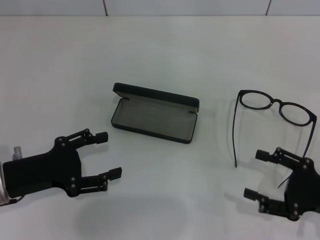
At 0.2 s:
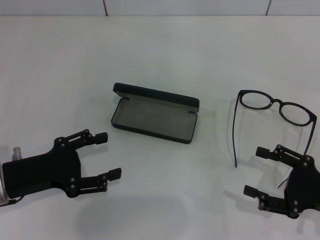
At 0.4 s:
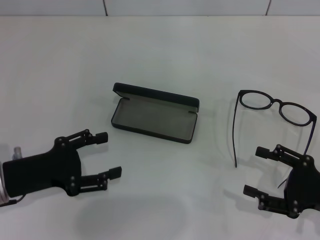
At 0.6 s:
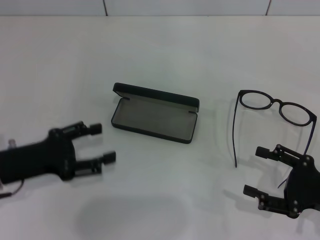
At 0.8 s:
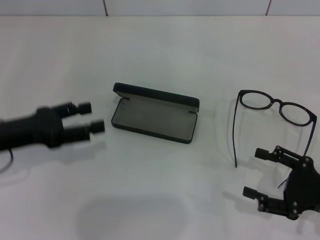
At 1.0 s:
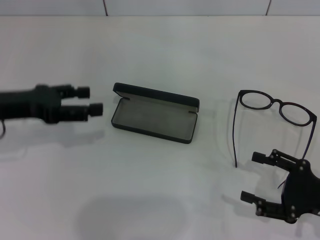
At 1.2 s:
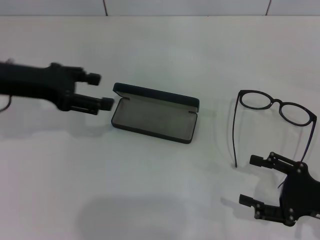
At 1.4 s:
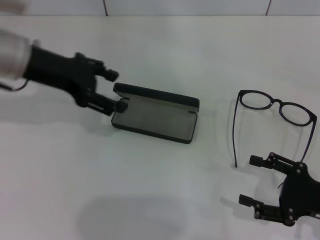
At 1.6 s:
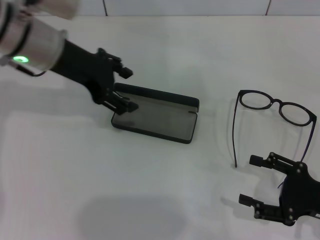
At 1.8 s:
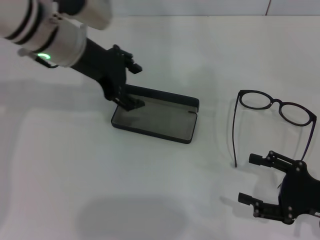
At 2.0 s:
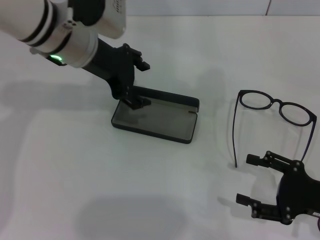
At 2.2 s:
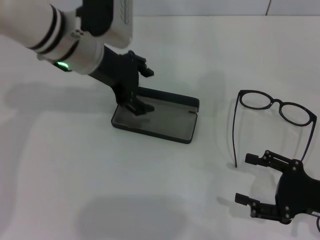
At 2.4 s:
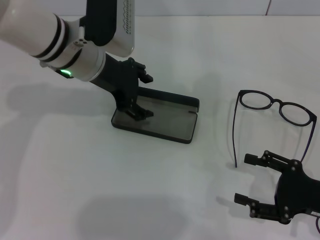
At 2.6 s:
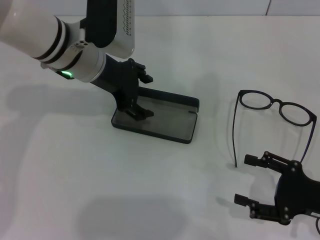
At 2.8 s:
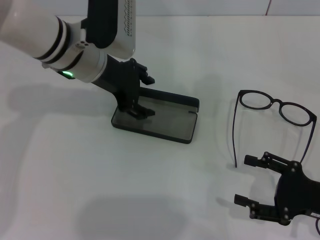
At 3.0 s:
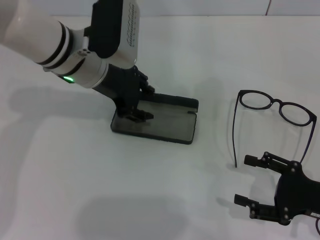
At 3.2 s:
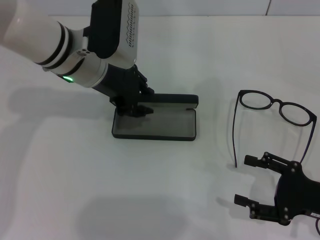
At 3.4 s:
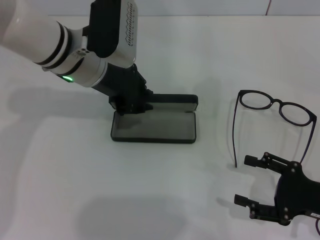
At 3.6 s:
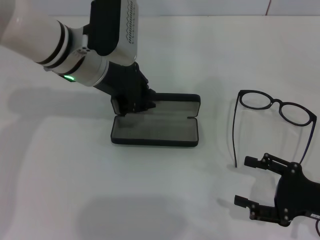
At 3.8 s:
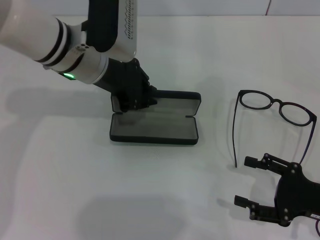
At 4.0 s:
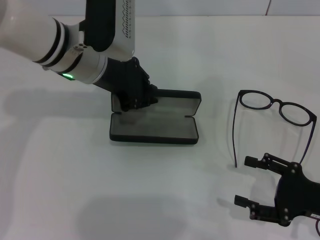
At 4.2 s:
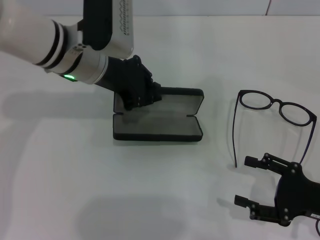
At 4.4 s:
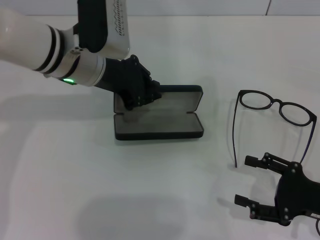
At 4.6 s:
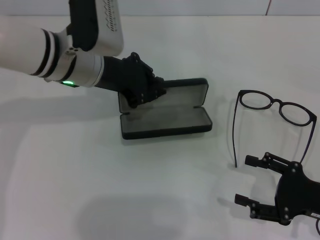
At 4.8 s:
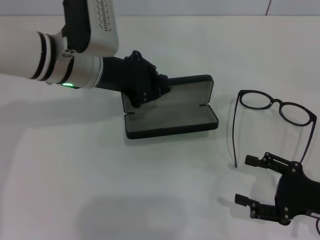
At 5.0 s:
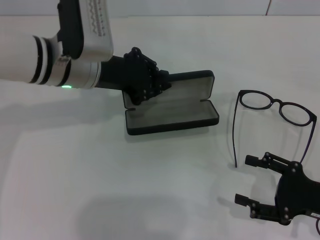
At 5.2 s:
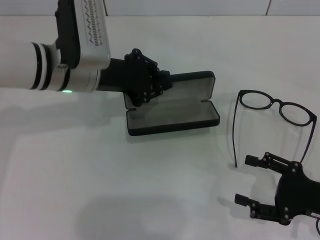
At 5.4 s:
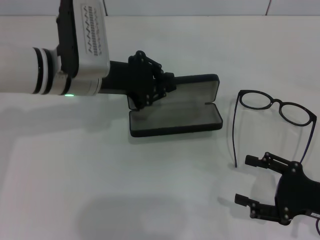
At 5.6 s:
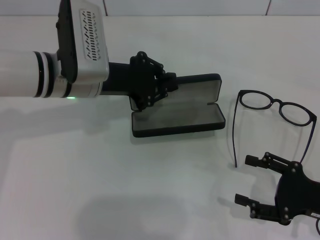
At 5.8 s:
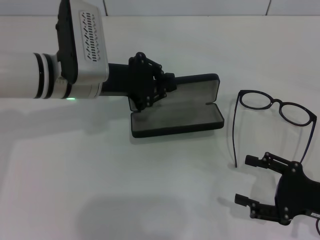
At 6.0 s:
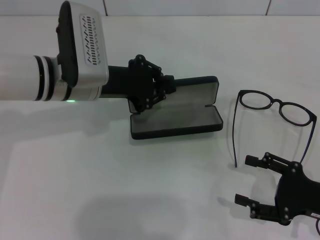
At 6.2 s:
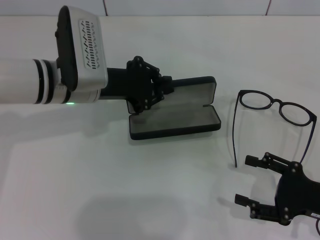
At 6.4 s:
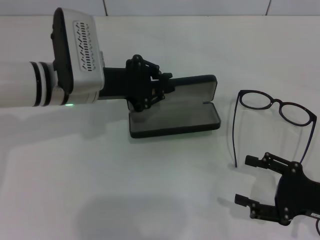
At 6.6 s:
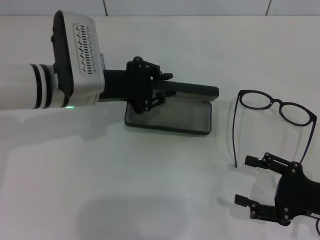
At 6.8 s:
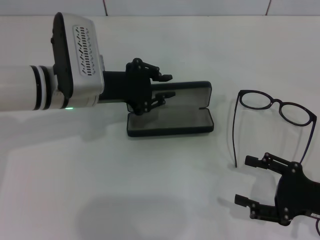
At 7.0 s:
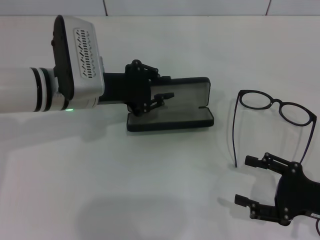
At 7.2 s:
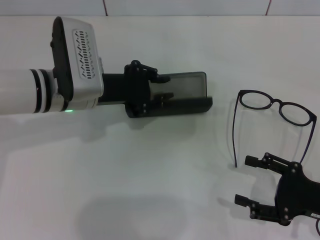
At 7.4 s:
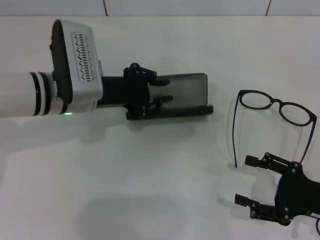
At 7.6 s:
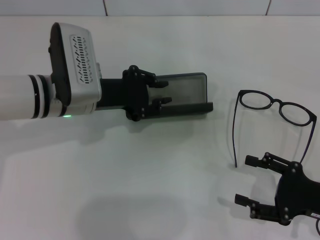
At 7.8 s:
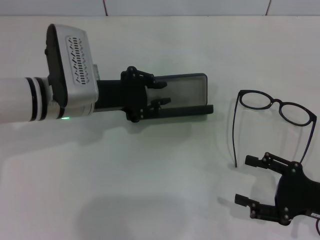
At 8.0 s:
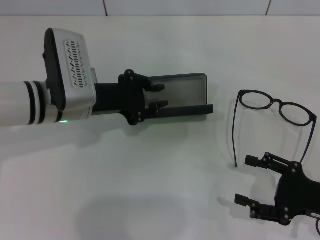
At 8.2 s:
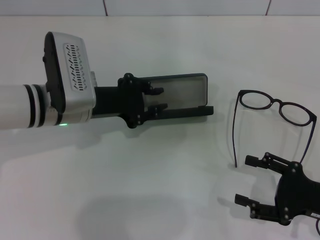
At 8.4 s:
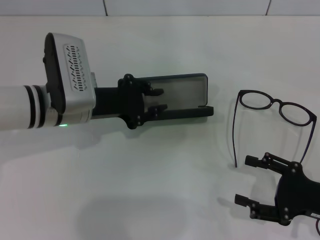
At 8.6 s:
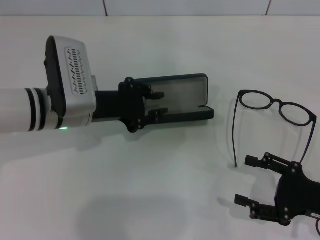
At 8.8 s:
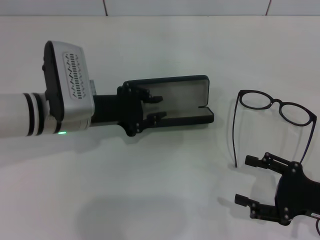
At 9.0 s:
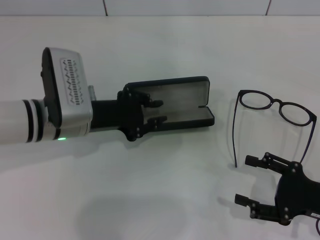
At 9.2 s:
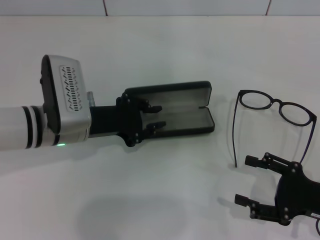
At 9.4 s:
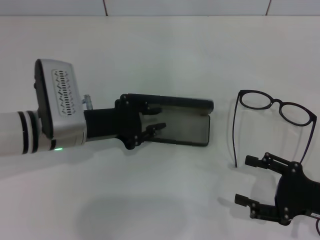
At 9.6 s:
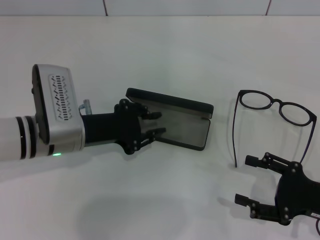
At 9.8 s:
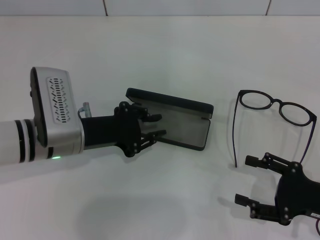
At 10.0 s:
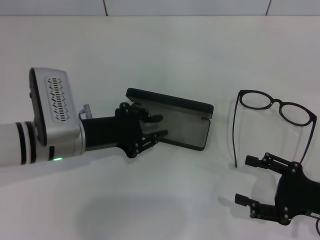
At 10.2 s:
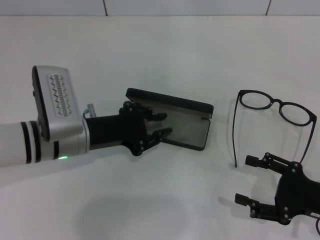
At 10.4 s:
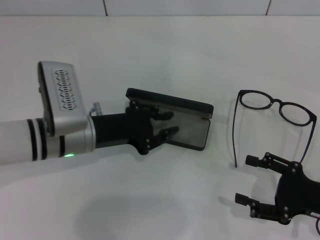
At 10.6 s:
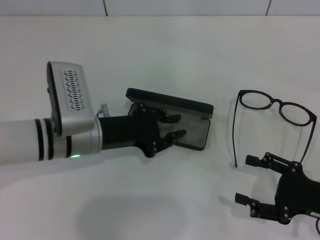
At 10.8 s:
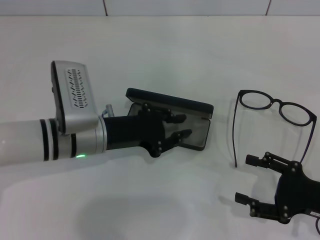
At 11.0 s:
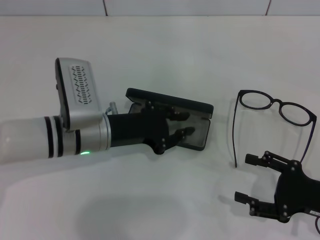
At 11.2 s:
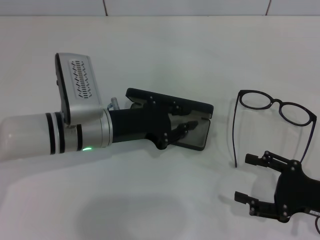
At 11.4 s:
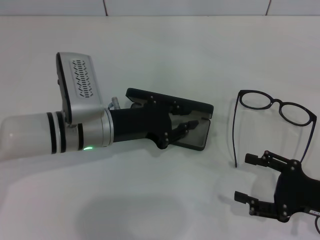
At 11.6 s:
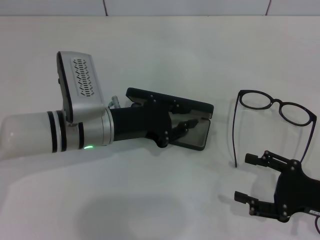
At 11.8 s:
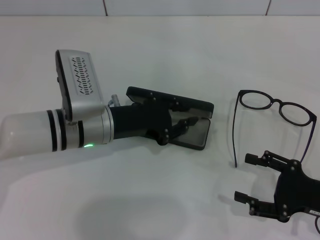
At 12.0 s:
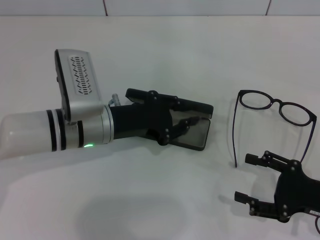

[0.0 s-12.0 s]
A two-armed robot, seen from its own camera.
Step, 0.0 to 3.6 s: Grab the glasses case with your left hand.
Step, 3.8 to 10.4 s: Place the glasses case in the center of the table with your left hand.
0.0 to 1.6 s: The left gripper moves forward, upward and to the right, about 25 cm.
1.6 to 3.0 s: The left gripper changes place by some 5 cm.
3.0 to 4.4 s: The left gripper closes up.
4.4 to 6.0 s: The grippers make only small movements.
6.0 to 9.0 s: The grippers move only a little.
9.0 to 12.0 s: The grippers stay close to where they were, moving slightly.

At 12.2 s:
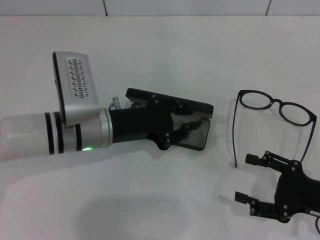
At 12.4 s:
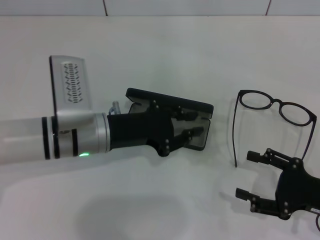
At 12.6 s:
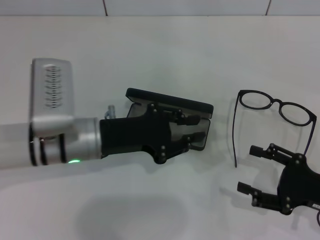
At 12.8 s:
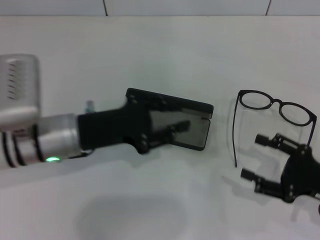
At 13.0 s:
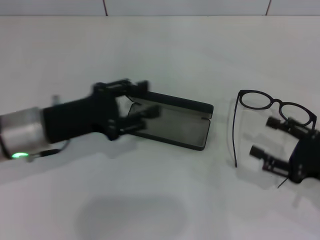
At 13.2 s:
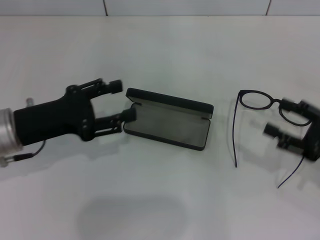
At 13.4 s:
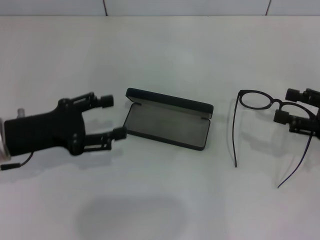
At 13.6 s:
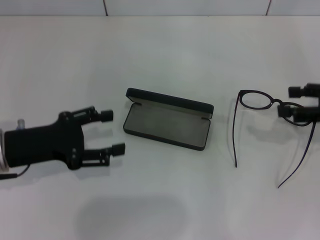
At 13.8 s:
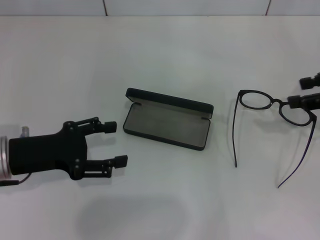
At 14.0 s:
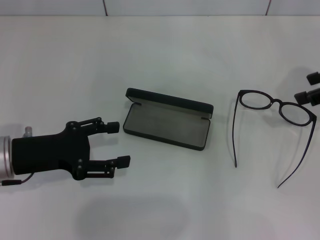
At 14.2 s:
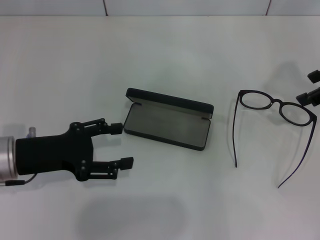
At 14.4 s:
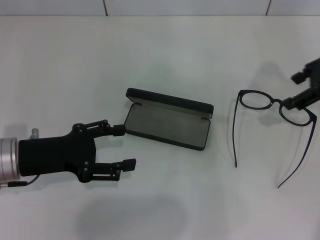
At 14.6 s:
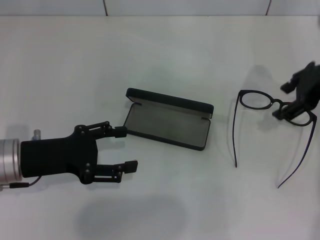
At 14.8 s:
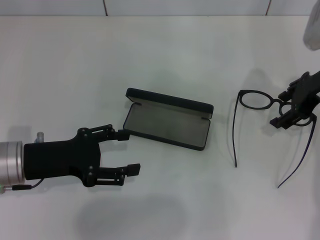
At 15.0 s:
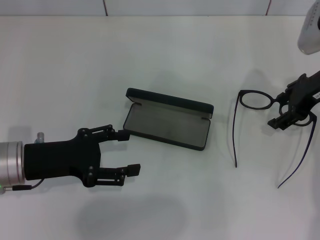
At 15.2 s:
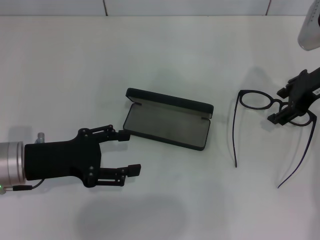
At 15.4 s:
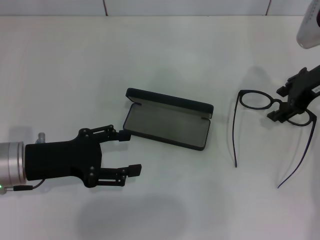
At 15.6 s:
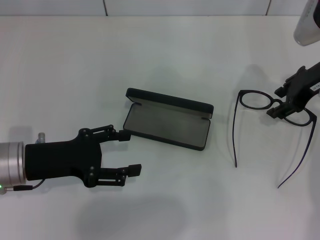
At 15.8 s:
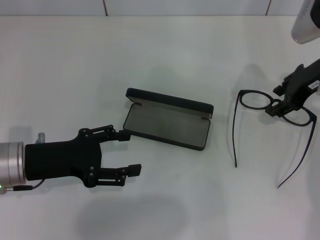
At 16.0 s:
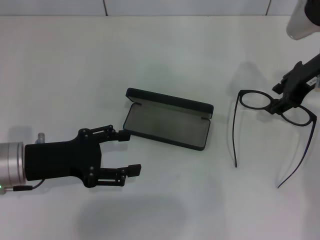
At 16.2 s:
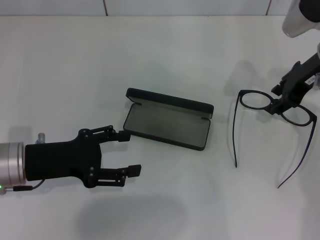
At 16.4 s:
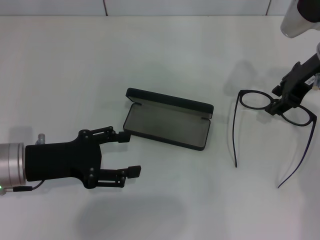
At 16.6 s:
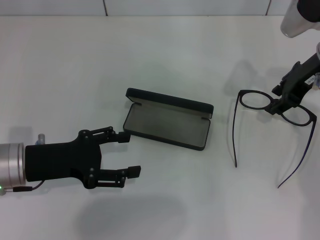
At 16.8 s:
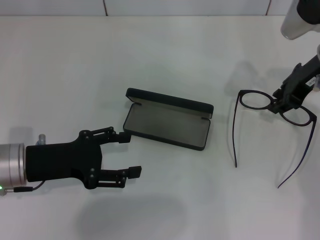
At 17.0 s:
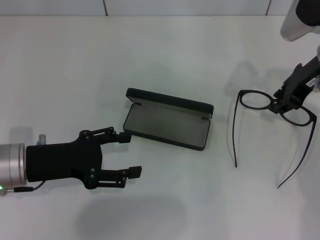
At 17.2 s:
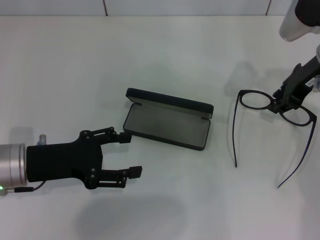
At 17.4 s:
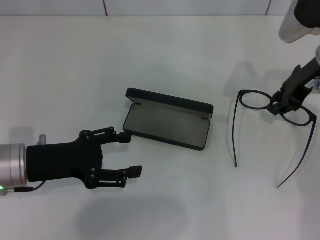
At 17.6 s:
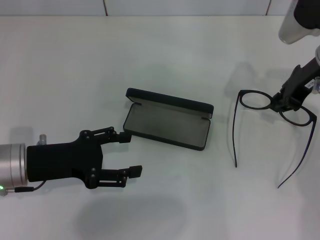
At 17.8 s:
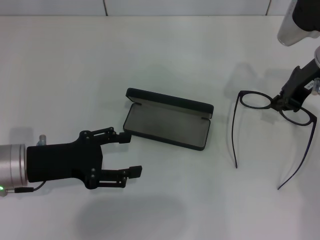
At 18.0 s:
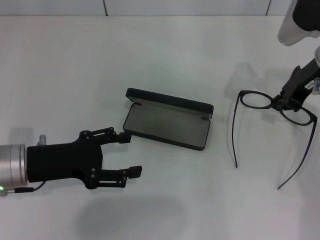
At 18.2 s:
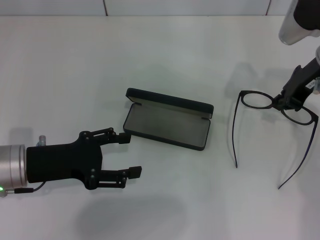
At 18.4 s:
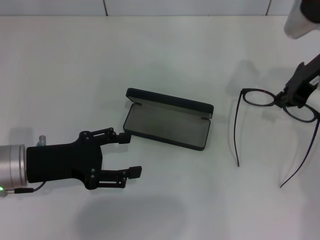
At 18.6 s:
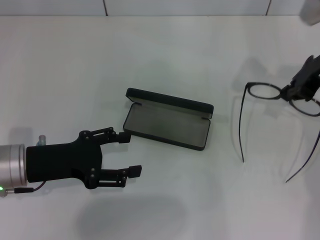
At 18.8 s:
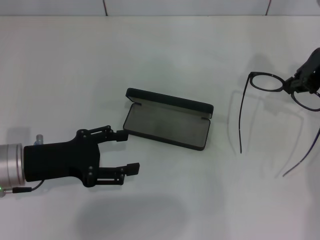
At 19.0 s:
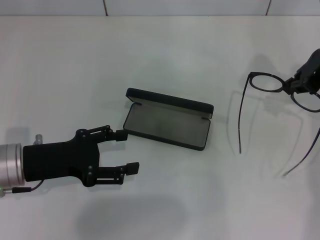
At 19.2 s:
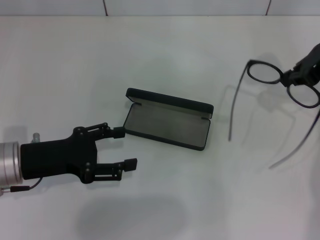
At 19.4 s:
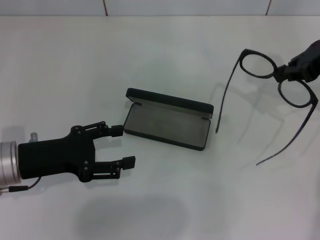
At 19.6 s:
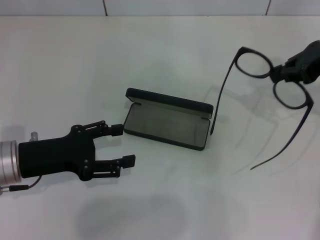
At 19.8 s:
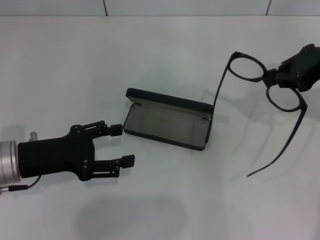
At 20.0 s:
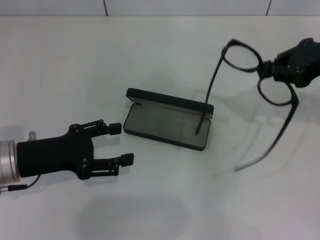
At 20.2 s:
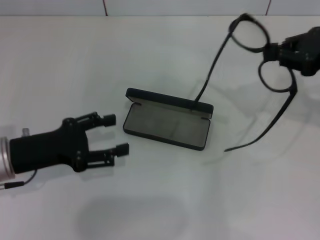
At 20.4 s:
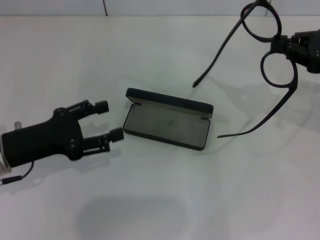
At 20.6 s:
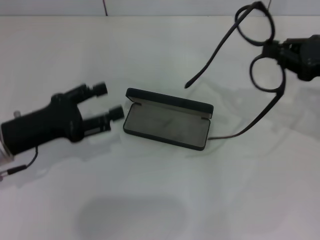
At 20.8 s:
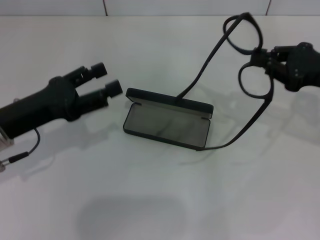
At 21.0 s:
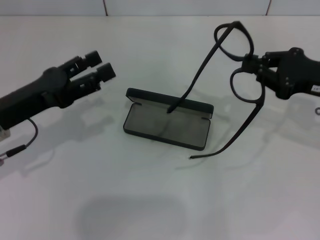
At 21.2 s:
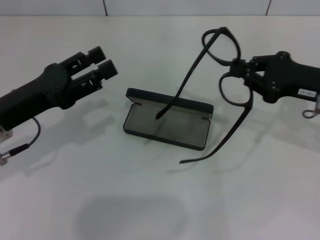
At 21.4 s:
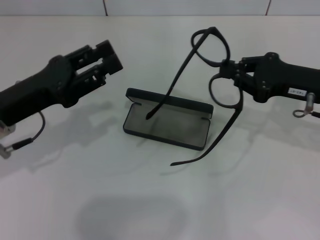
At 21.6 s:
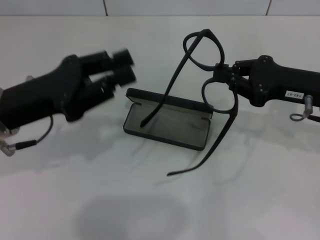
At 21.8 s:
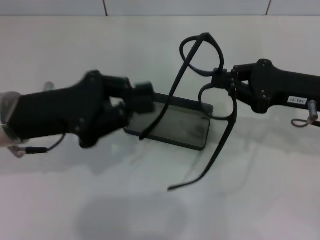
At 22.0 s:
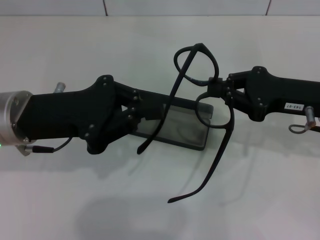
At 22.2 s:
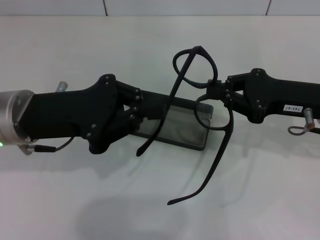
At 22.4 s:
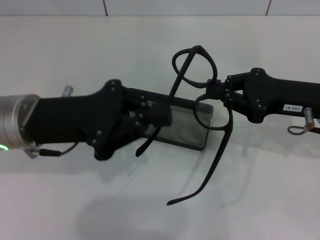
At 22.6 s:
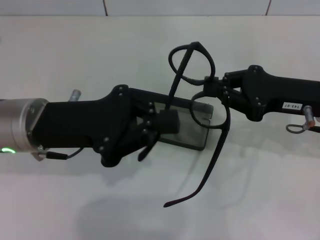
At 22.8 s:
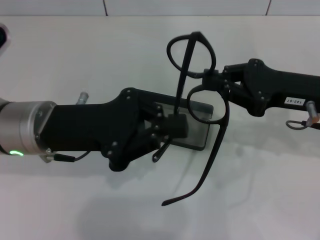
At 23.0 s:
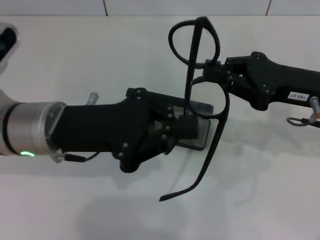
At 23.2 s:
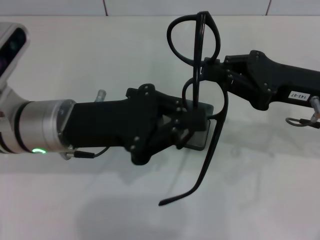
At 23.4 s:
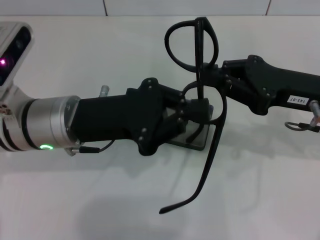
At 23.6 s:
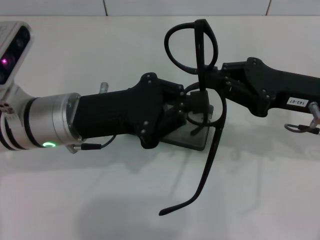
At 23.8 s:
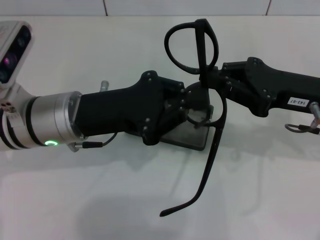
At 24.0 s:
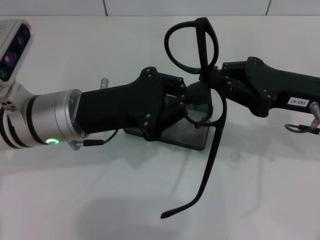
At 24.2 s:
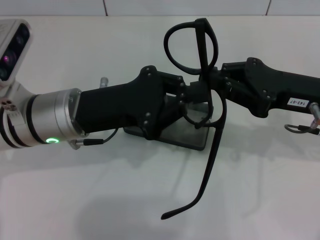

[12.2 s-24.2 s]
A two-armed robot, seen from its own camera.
Step, 12.2 to 17.8 s: Grab the eyeglass frame with your right hand.
12.2 to 13.8 s: The left gripper travels to the left and backward by some 15 cm, and opens its fingers. The right gripper is displaced upward and forward by roughly 20 cm.
13.8 to 15.2 s: The right gripper moves to the left and forward, about 10 cm.
15.2 to 16.6 s: The right gripper closes its fingers.
16.6 to 18.2 s: The right gripper closes up.
18.2 to 19.8 s: The right gripper shifts by some 5 cm.
19.8 to 21.2 s: The right gripper travels downward by roughly 10 cm.
21.2 to 22.6 s: The left gripper heads to the right, covering roughly 5 cm, and closes its fingers.
